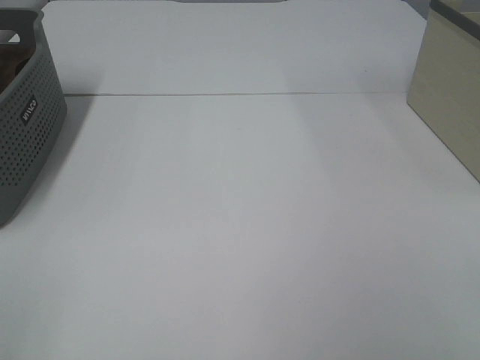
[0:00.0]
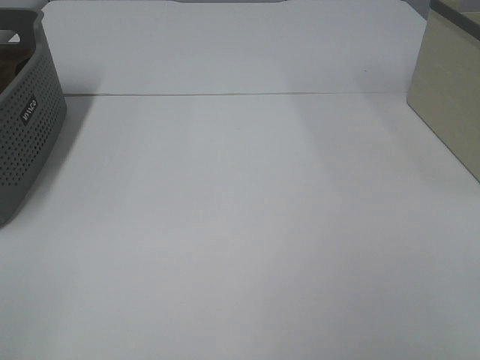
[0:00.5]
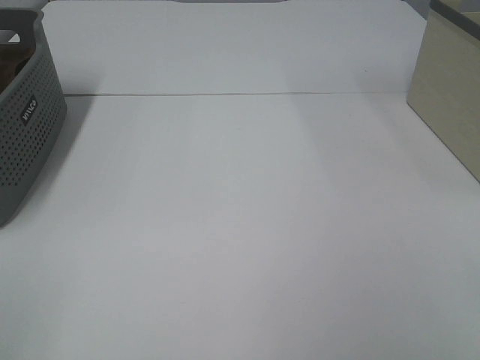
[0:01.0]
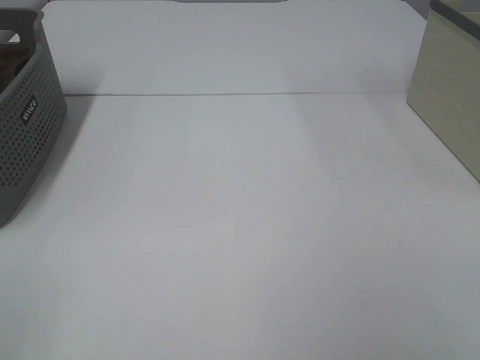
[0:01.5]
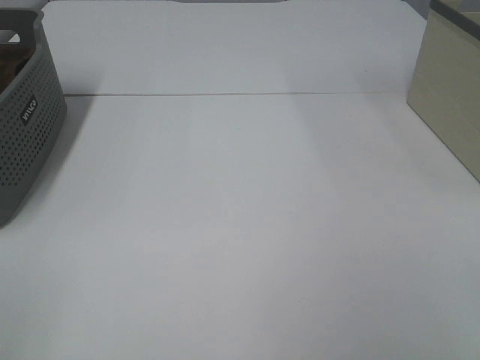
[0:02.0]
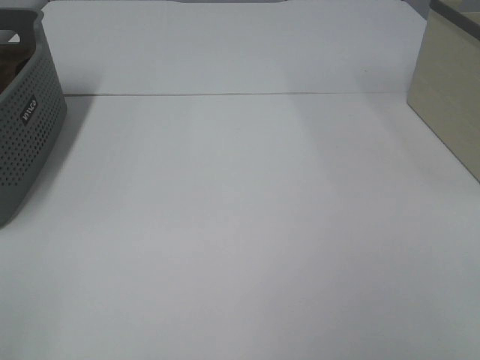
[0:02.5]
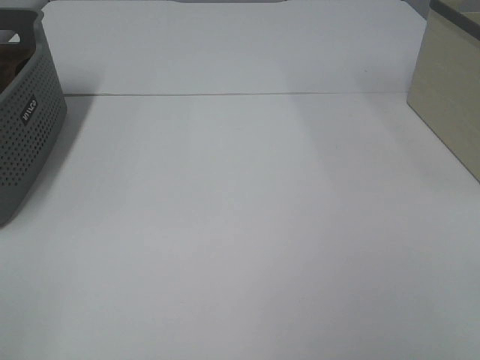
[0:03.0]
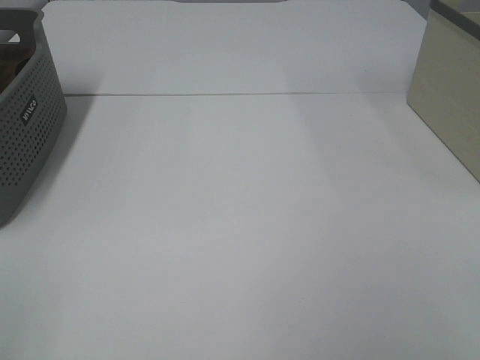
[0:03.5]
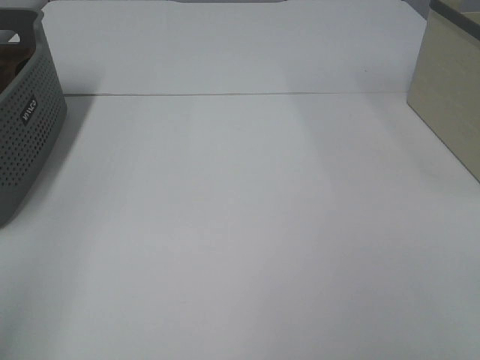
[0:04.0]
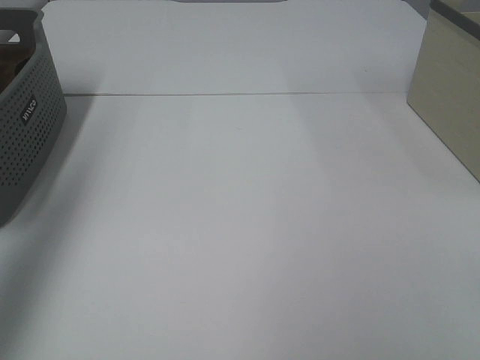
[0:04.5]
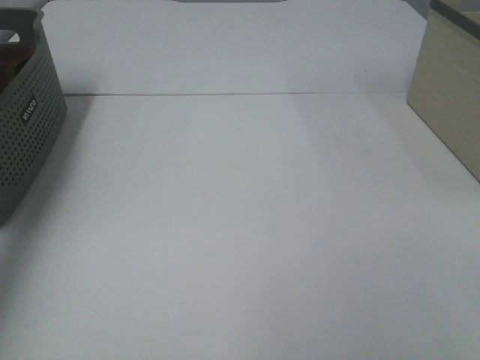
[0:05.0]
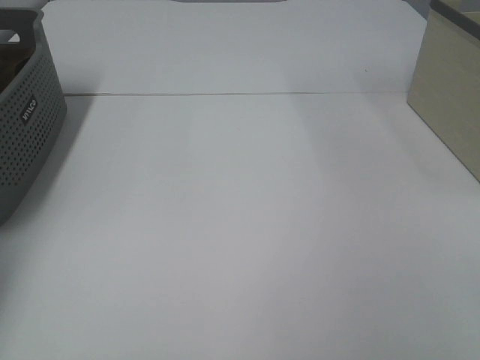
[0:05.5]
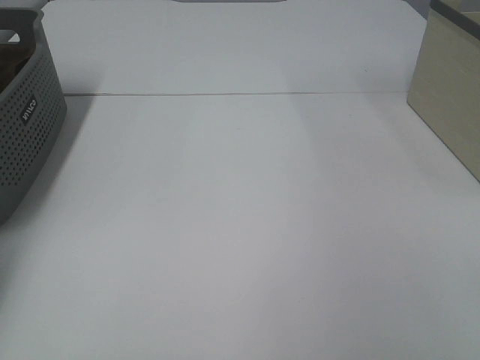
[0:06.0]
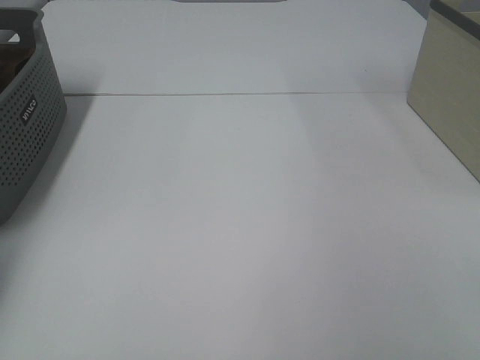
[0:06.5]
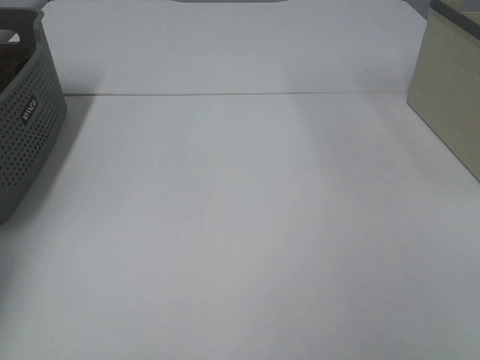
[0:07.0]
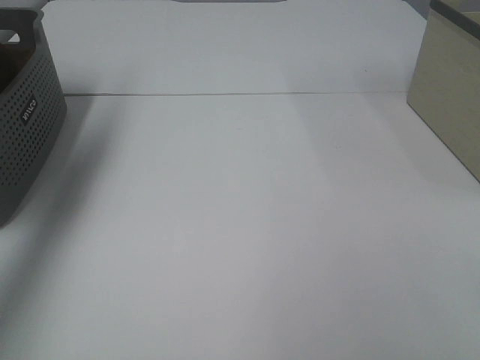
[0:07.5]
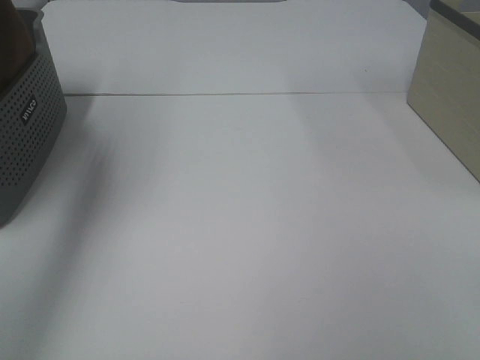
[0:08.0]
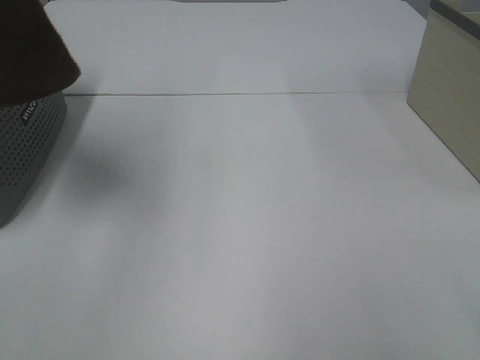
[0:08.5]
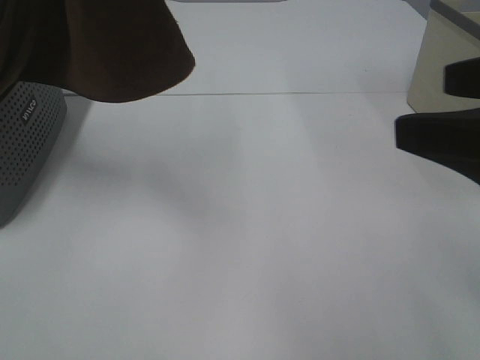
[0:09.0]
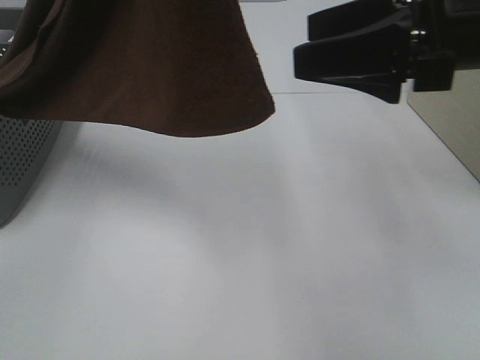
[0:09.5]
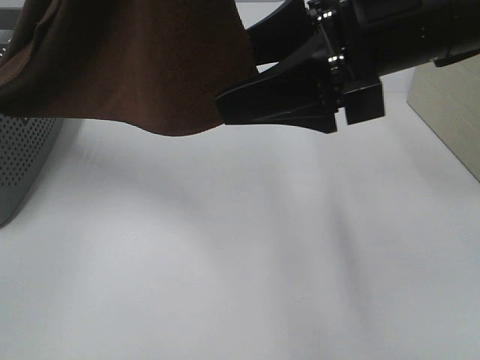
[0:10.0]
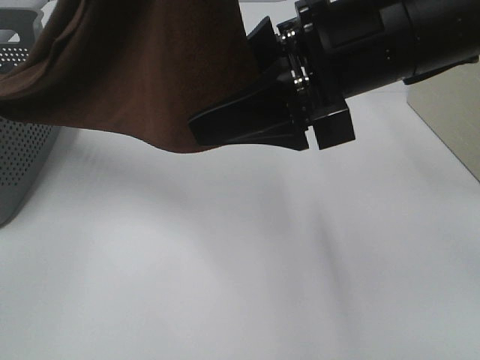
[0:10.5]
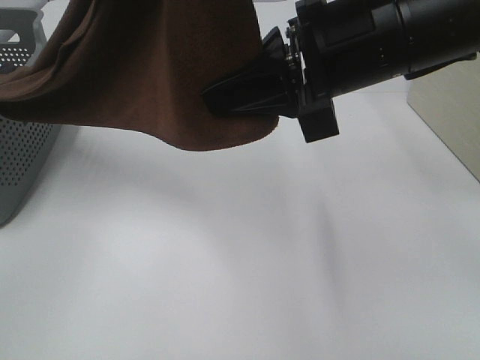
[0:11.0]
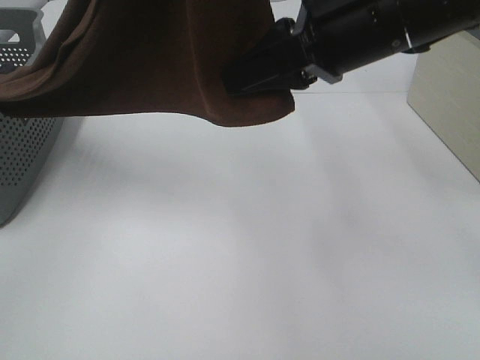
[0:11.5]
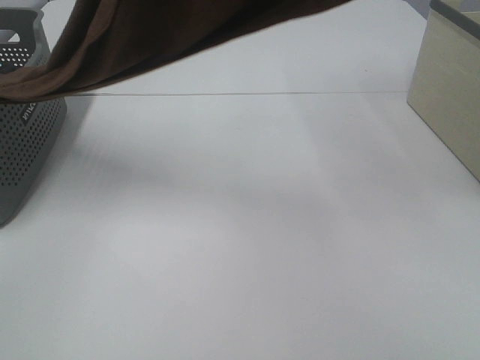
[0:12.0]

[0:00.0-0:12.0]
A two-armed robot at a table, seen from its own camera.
Task of the whole recording: Remove the towel and place it.
Step, 0:08.0 to 0:11.5: Right hand: grab a corner of the brown towel and straighten it.
0:00.0 to 0:02.0: Both grippers stay put.
0:04.0 to 0:06.0: The left gripper is displaced forward by approximately 40 cm.
0:06.0 to 0:08.0: The left gripper shifts roughly 35 cm upward, to the right and backward, and closes its fingers.
0:08.0 to 0:10.0: The left gripper shifts some 20 cm to the right and backward, while the right gripper moves forward and to the left, approximately 30 cm.
0:10.0 to 0:12.0: The right gripper goes roughly 10 cm upward, and closes up.

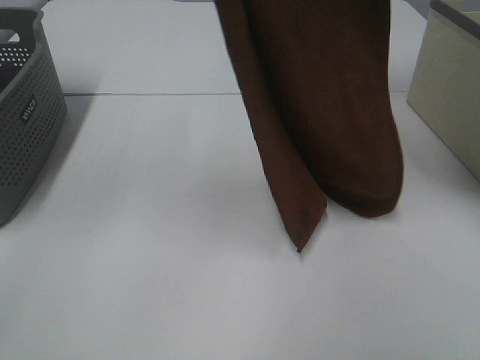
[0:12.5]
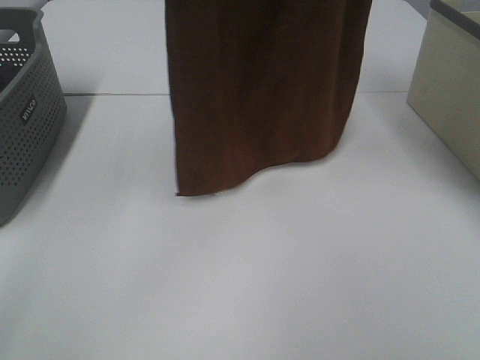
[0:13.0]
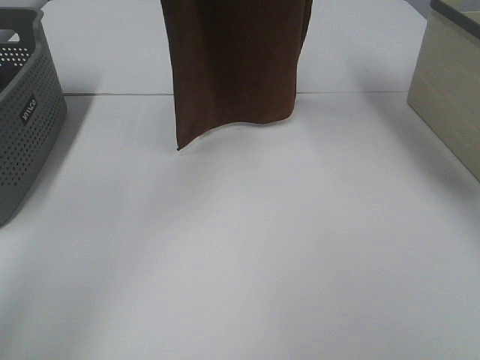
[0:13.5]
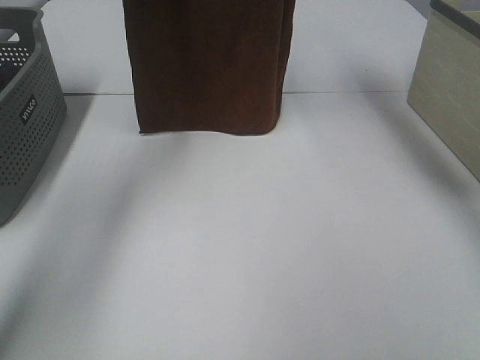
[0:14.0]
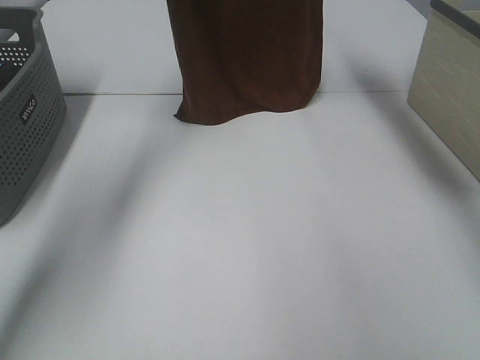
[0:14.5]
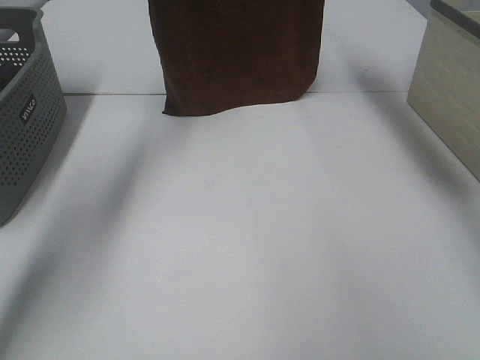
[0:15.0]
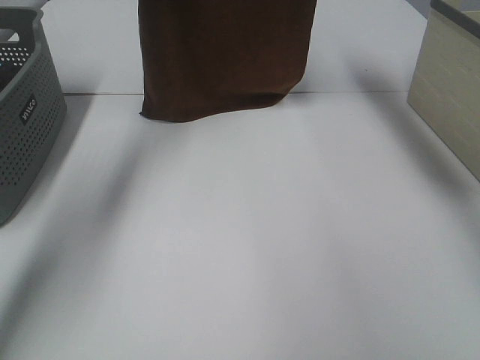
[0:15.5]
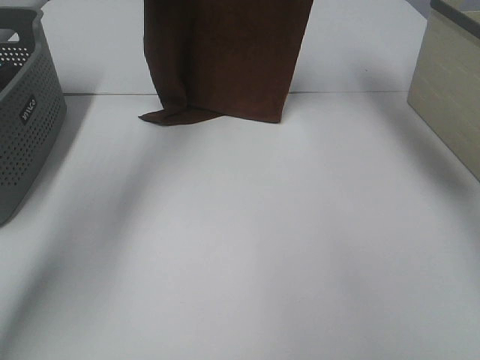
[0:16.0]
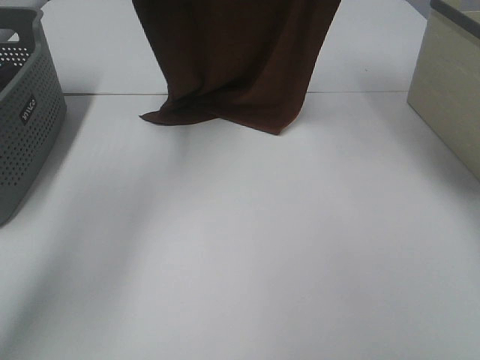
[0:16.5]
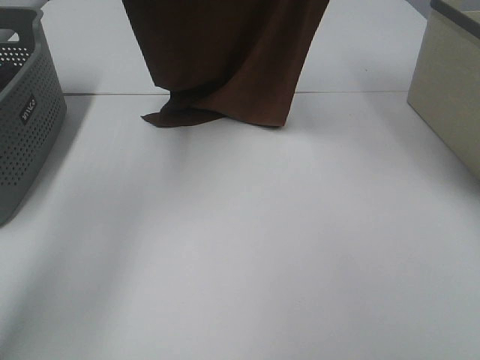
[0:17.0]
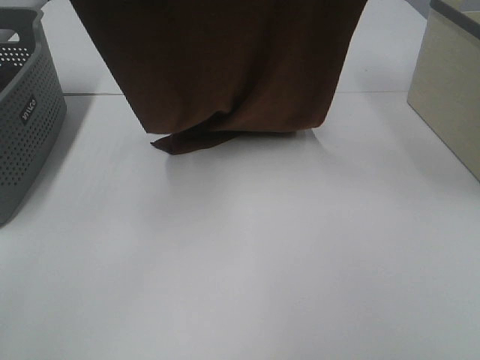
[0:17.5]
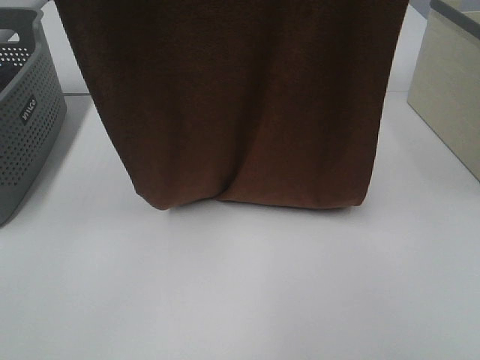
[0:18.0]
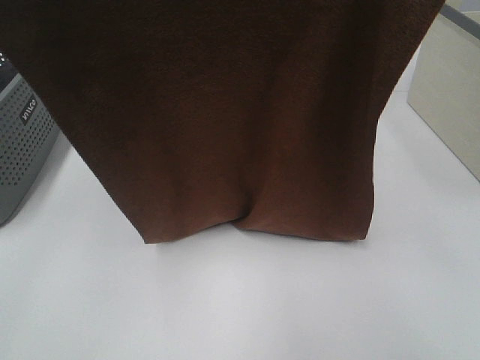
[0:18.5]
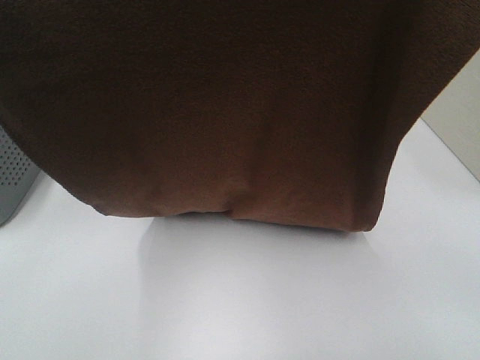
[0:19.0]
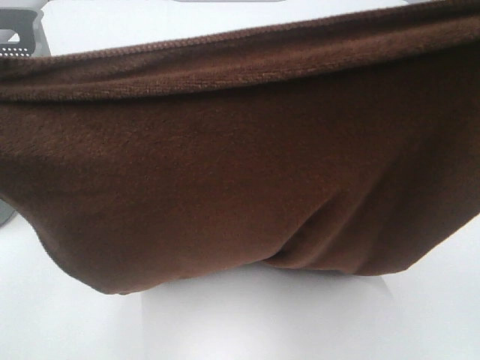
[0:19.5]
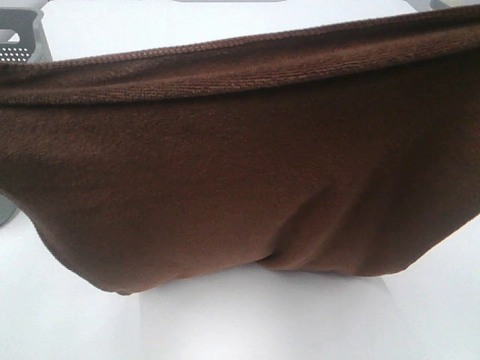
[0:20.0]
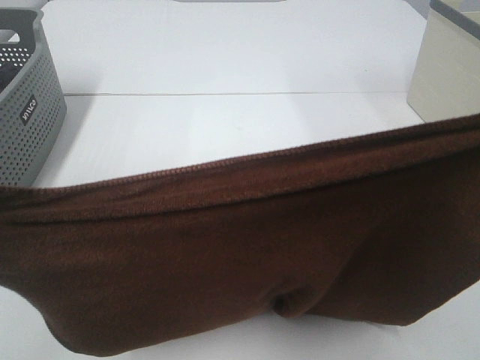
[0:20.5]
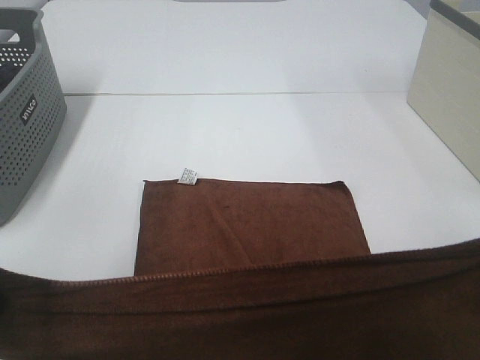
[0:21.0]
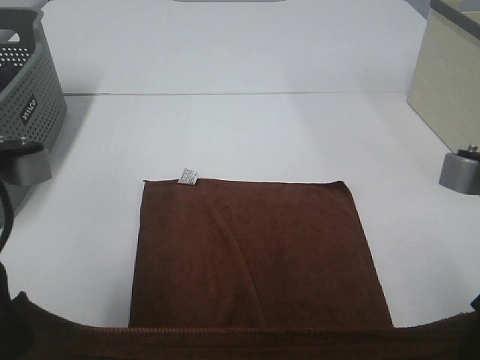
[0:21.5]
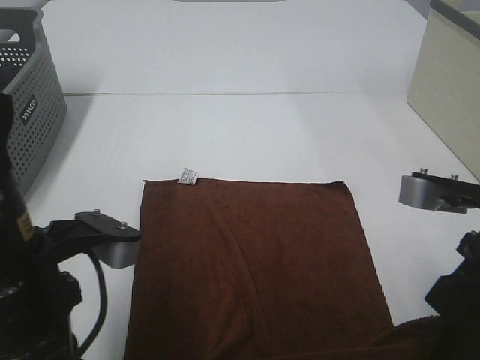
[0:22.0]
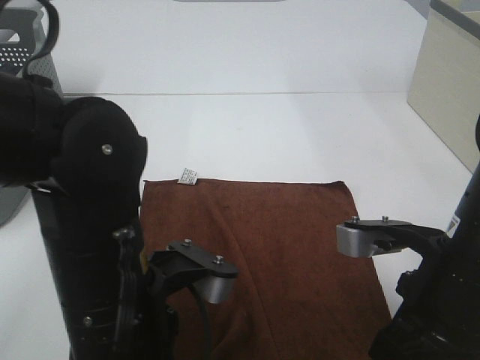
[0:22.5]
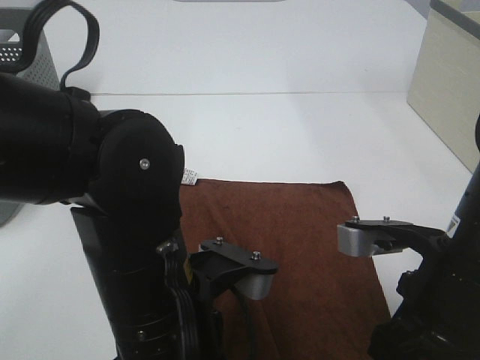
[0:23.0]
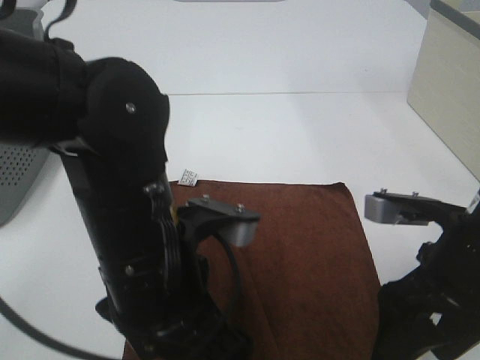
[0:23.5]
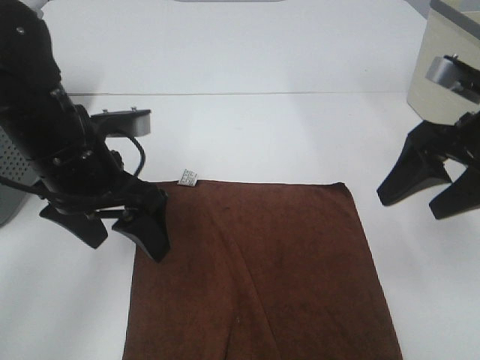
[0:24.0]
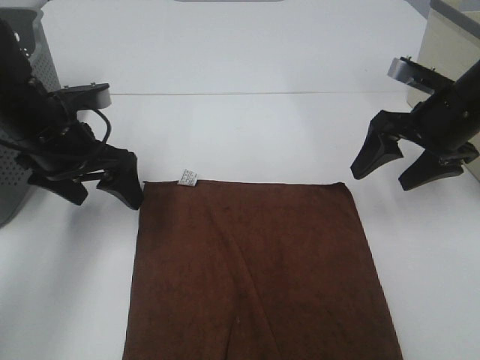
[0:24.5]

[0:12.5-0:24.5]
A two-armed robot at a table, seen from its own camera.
Task of the whole recording: Remove the towel and place it.
Step, 0:12.5 to 0:18.5: Left hand: spread the brown towel flat on the table.
Step, 0:12.5 to 0:18.5: Right hand: spread the brown towel flat on the table.
0:12.5 to 0:14.5: The left gripper heads forward and downward, covering approximately 25 cm. Meanwhile the right gripper moves forward, some 15 cm.
0:14.5 to 0:16.5: Both grippers move backward, approximately 5 cm.
0:16.5 to 0:18.5: Both grippers travel together backward, about 25 cm.
0:18.5 to 0:20.5: The grippers both shift downward and backward by approximately 15 cm.
0:20.5 to 0:22.5: The right gripper heads downward, covering about 20 cm. The left gripper travels downward and to the right by about 20 cm.
0:22.5 to 0:24.5: The right gripper heads forward and to the right, covering approximately 20 cm, and opens its fingers. The left gripper goes approximately 25 cm forward and to the left, and opens up.

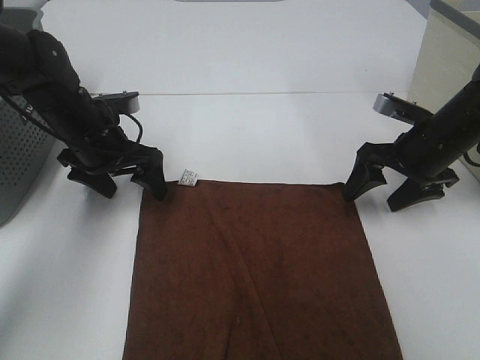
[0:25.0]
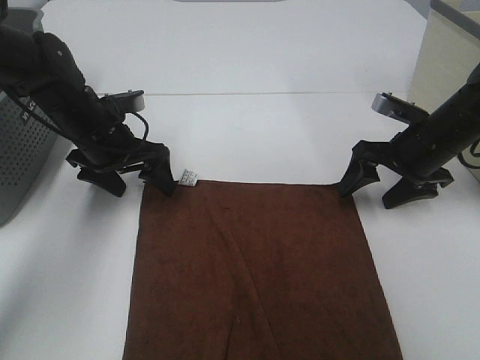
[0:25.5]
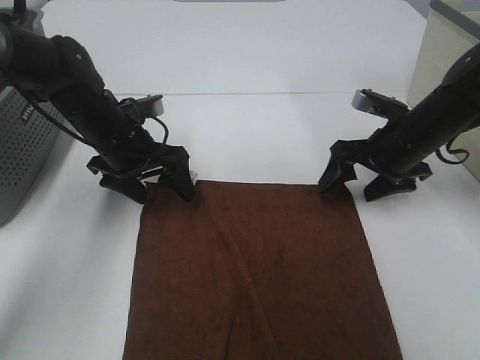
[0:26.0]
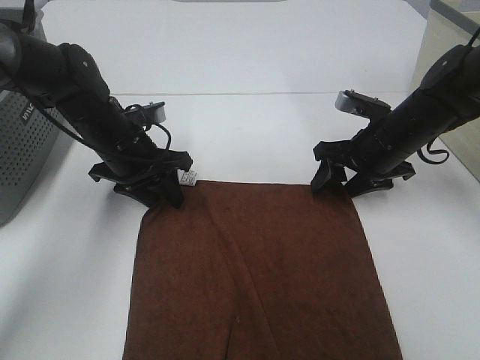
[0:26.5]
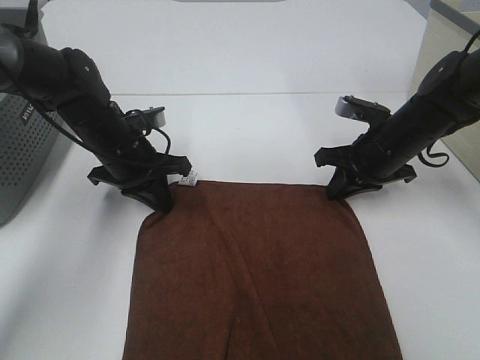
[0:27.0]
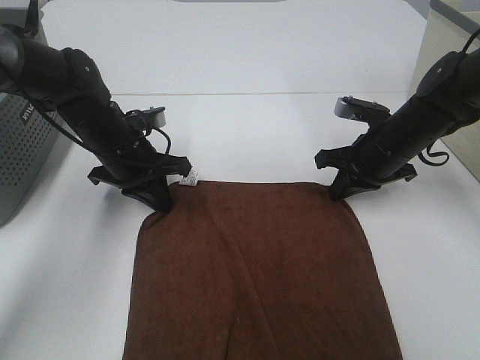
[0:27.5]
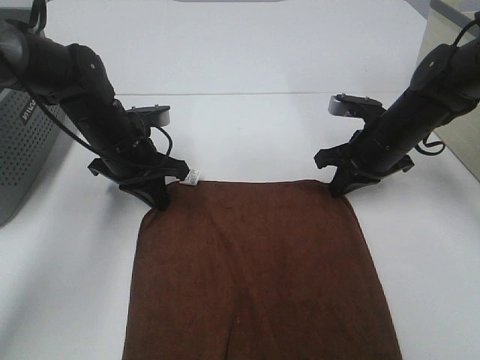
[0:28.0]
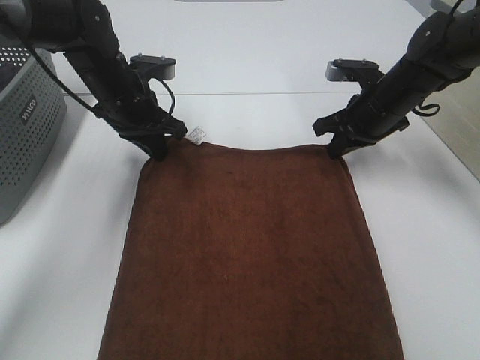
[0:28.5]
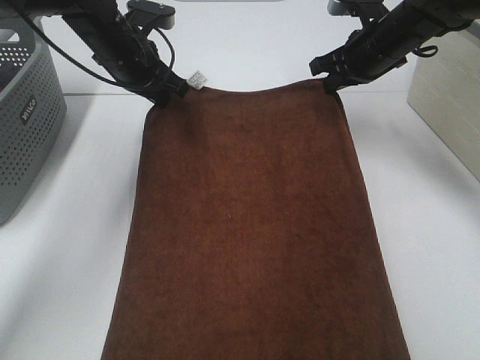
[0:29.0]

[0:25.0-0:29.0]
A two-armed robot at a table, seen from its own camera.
Task of the whole recording: Remove the towel and place it.
0:25.0 to 0:27.0: The right gripper shifts by roughly 5 cm, and closes its fingers. Meanwhile the left gripper closes.
0:27.0 to 0:29.0: Both grippers travel together upward and forward, some 15 cm.
